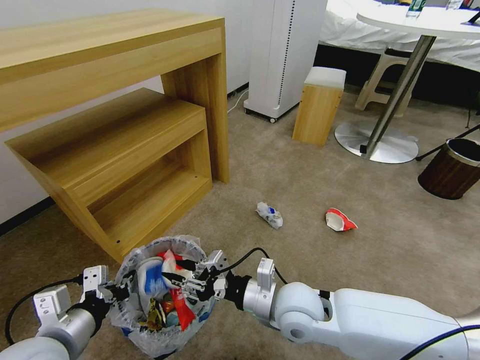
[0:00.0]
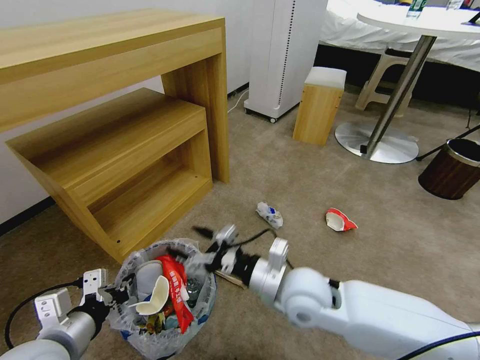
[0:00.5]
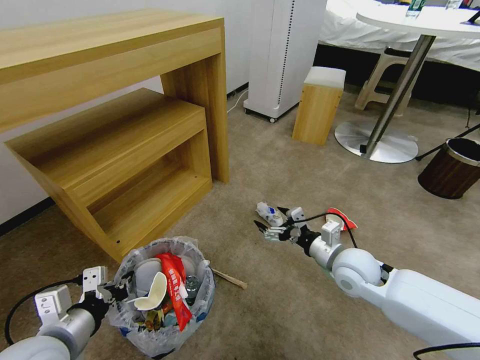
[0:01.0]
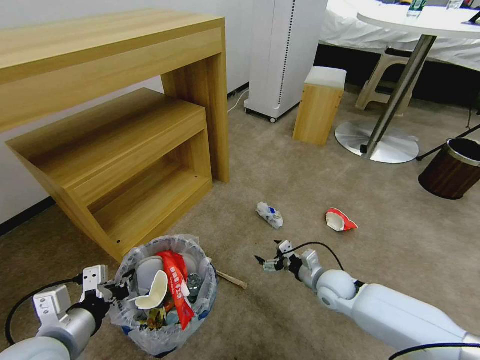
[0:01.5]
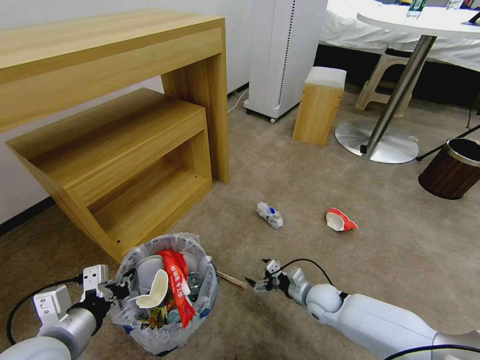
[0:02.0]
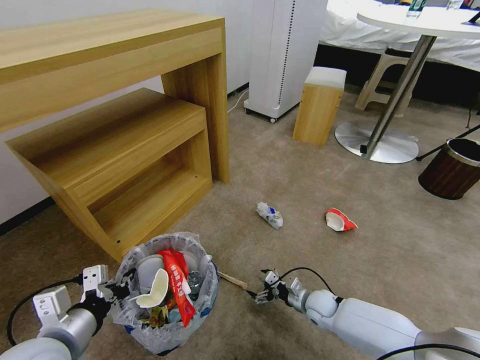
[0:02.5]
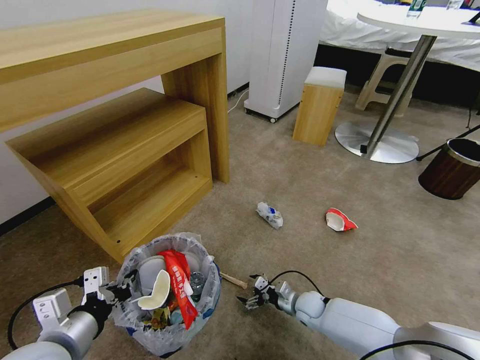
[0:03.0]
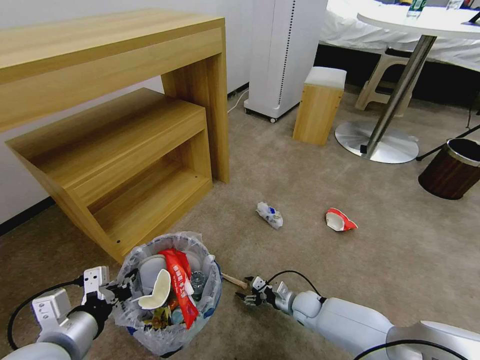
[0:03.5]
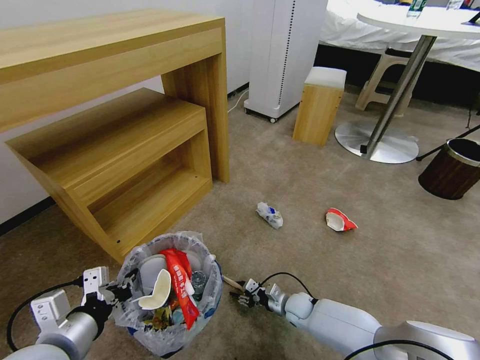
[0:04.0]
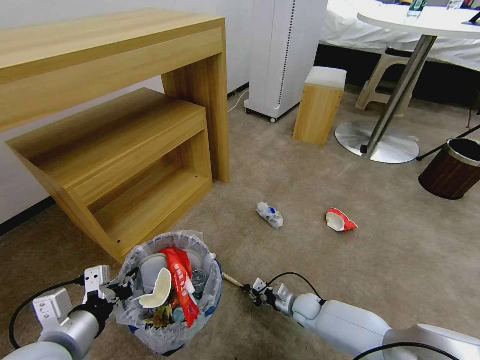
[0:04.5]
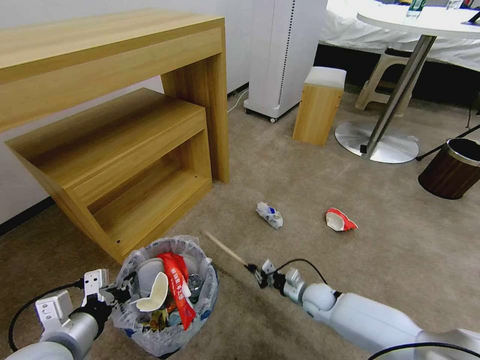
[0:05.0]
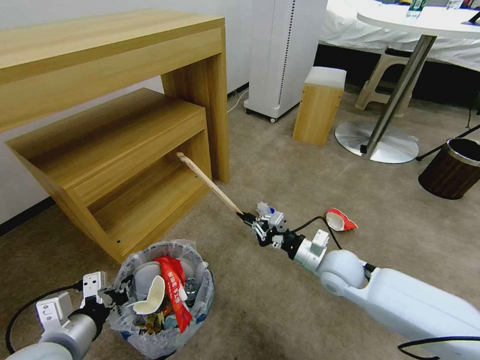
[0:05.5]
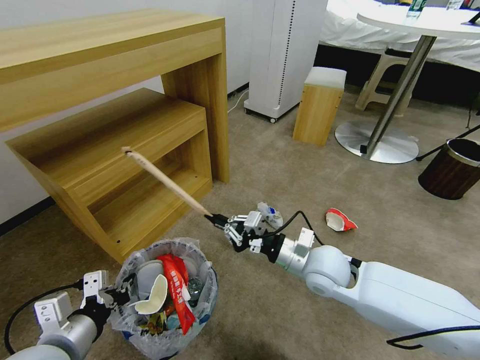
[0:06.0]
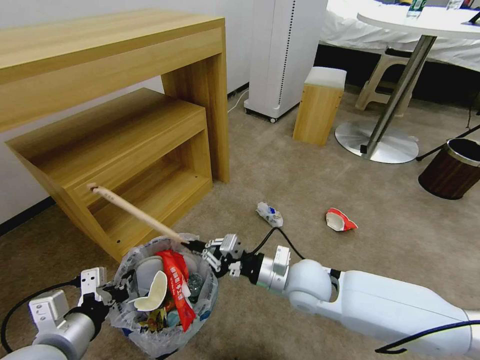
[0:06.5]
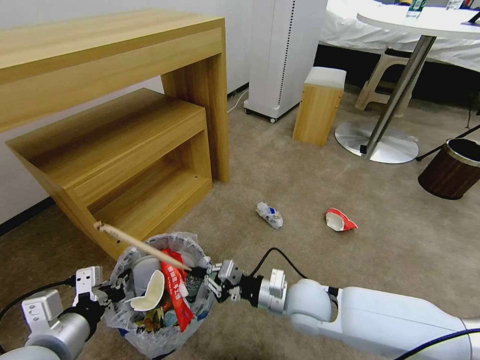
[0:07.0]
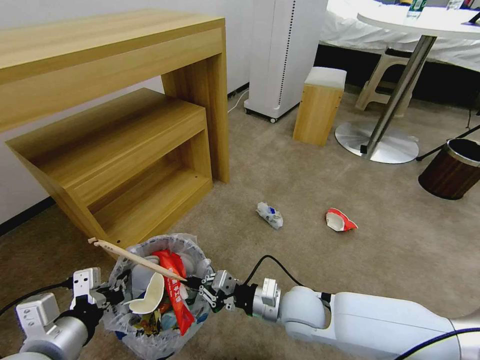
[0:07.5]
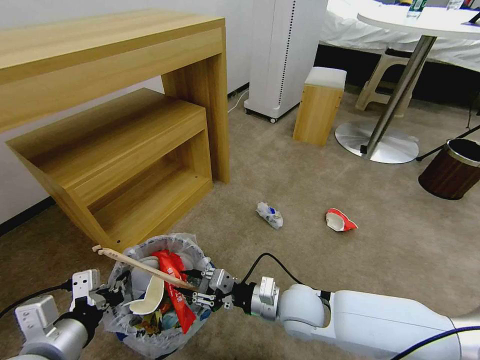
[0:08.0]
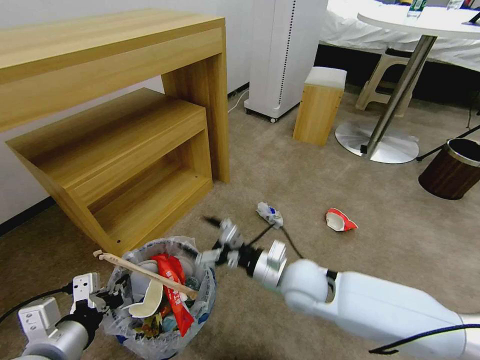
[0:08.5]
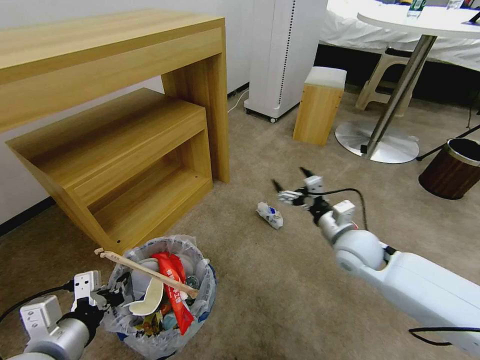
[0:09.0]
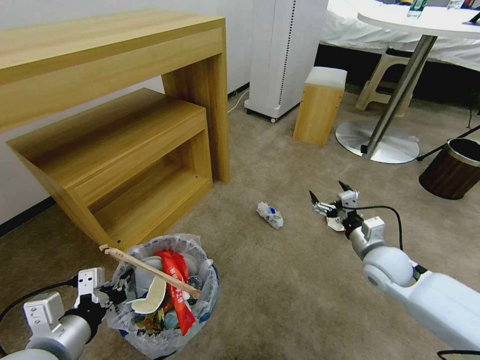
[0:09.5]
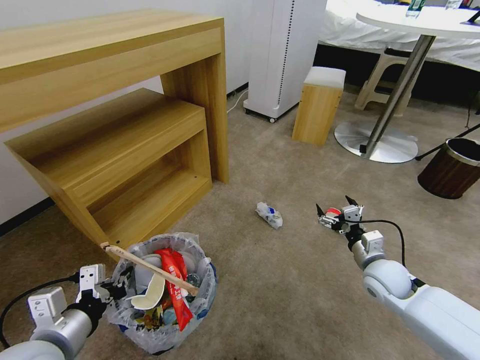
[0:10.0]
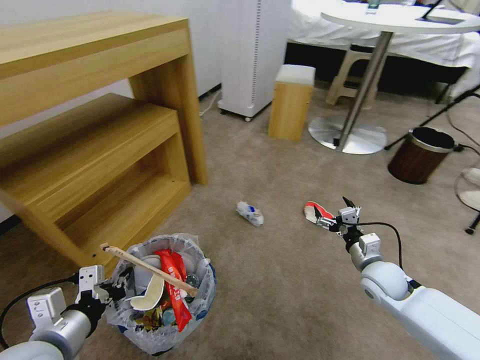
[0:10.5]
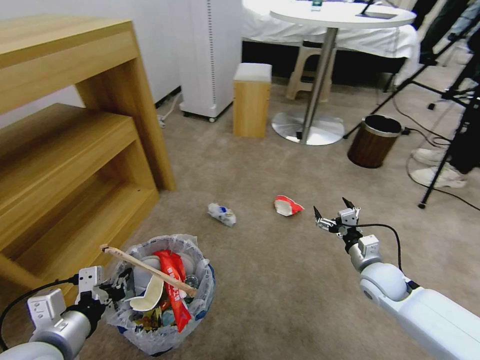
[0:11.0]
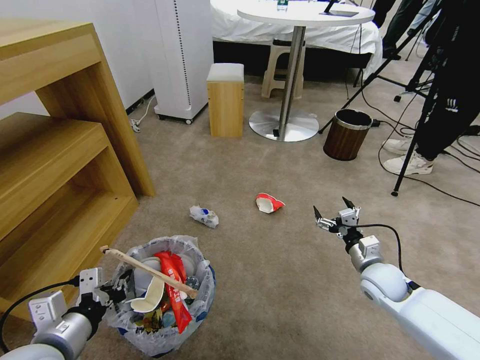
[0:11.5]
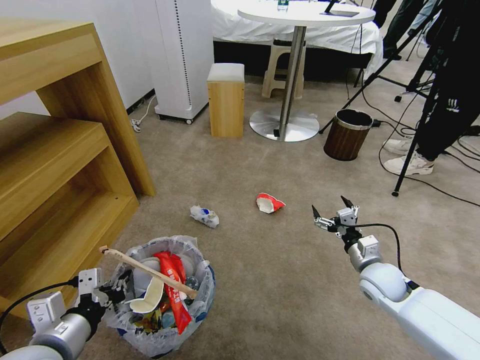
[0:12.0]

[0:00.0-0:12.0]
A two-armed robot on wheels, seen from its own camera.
Task of the whole recording: Pick up the trash bin and place the garbage on the floor into it.
0:00.0 to 0:02.0: The right gripper moves downward, to the right and forward, approximately 25 cm, and opens up.
0:02.0 to 0:04.0: The right gripper is displaced downward by roughly 10 cm, and closes its fingers.
0:04.0 to 0:06.0: The right gripper is displaced upward by about 30 cm, and closes.
0:06.0 to 0:08.0: The right gripper travels downward, backward and to the left by some 10 cm, and opens up.
0:08.0 to 0:10.0: The right gripper is displaced to the right by approximately 20 cm, and opens up.

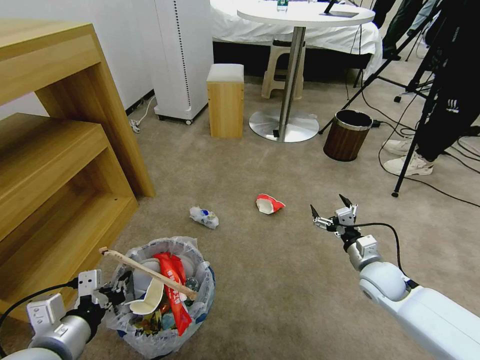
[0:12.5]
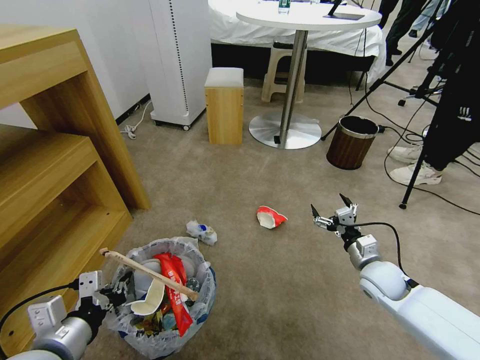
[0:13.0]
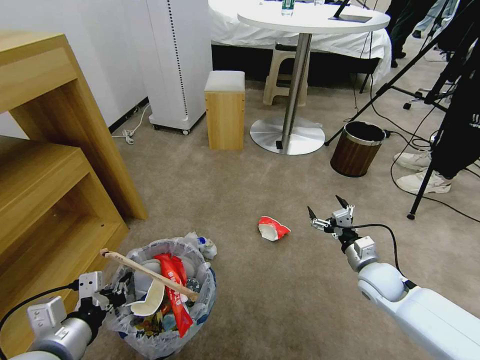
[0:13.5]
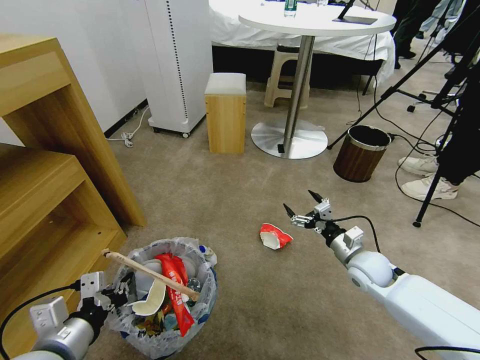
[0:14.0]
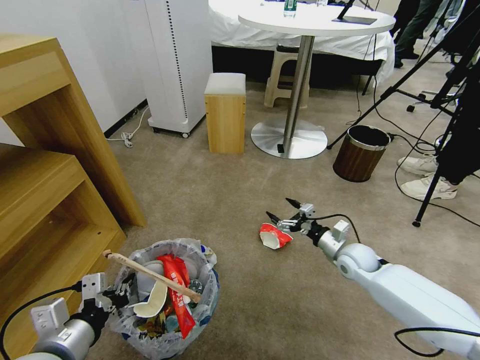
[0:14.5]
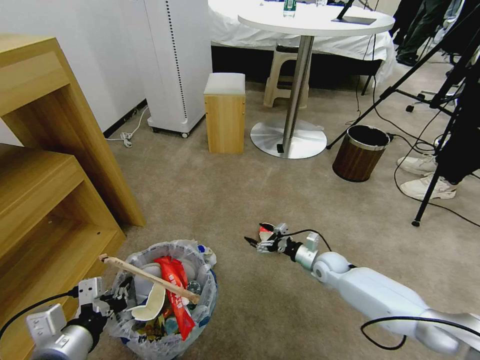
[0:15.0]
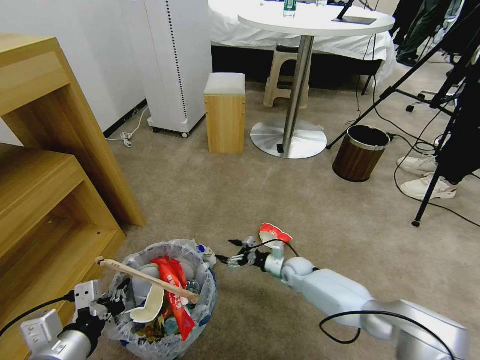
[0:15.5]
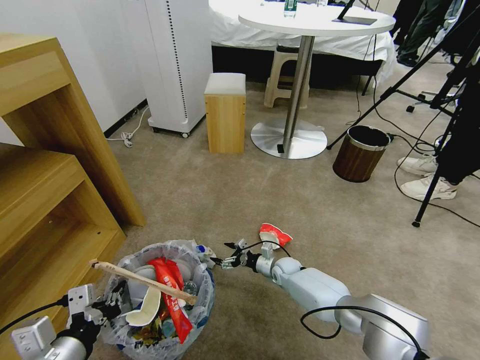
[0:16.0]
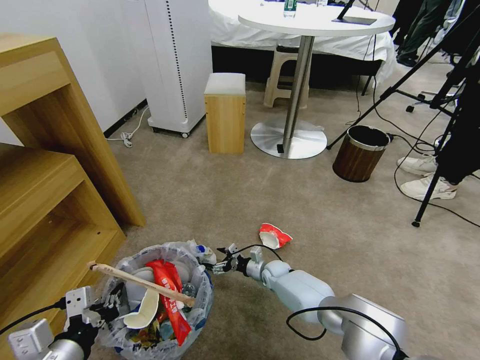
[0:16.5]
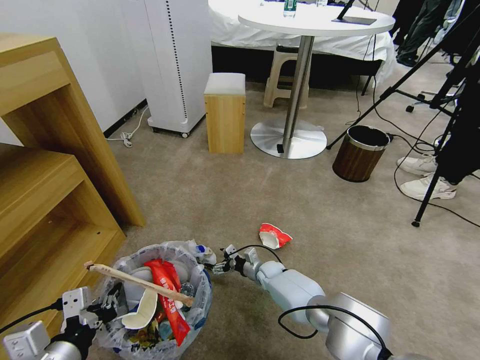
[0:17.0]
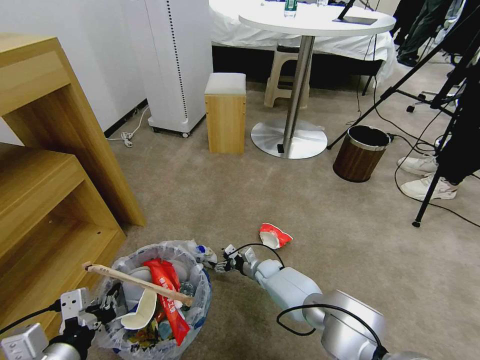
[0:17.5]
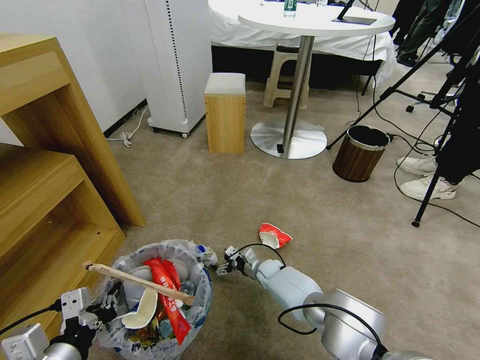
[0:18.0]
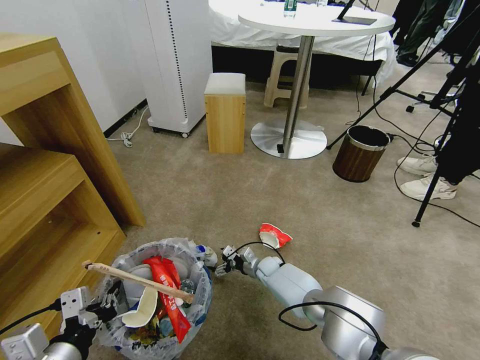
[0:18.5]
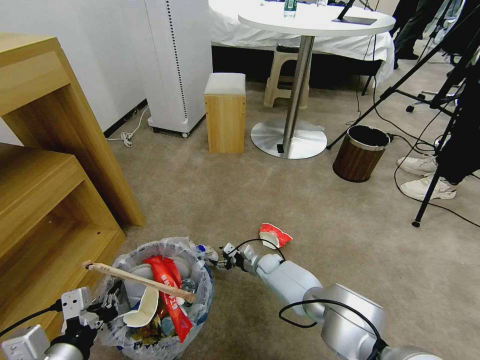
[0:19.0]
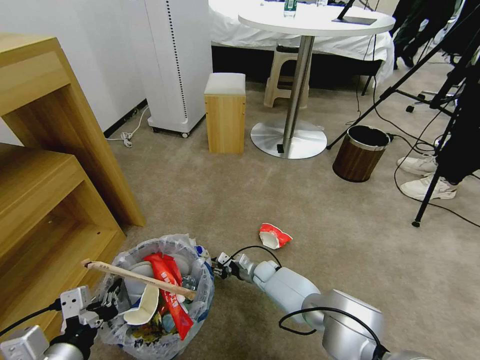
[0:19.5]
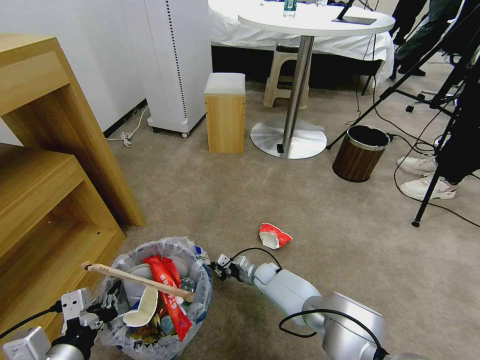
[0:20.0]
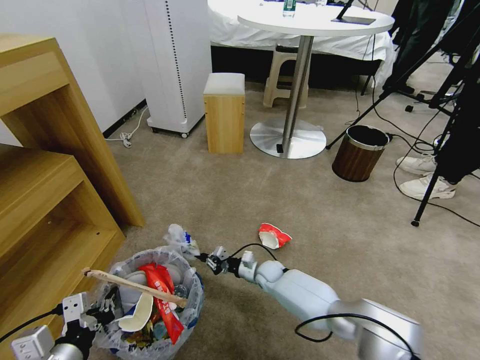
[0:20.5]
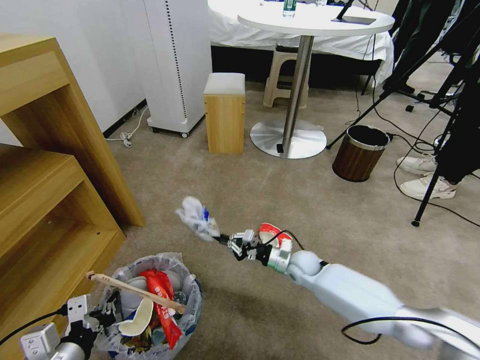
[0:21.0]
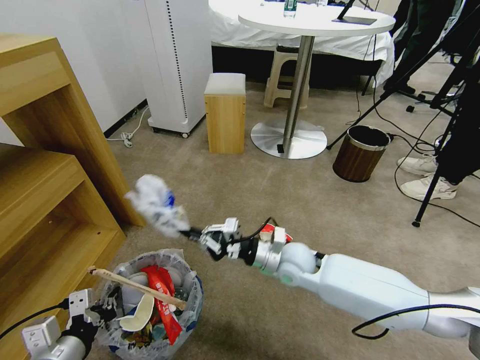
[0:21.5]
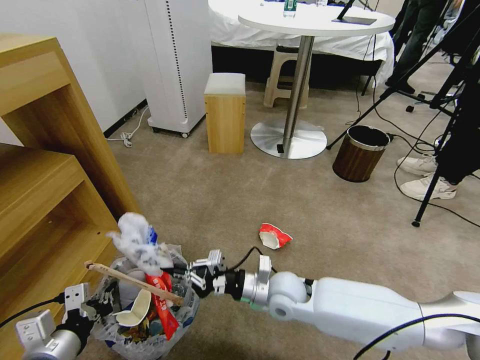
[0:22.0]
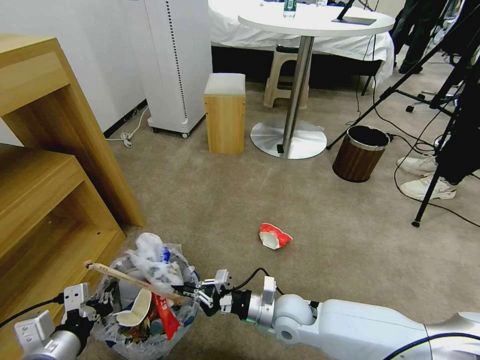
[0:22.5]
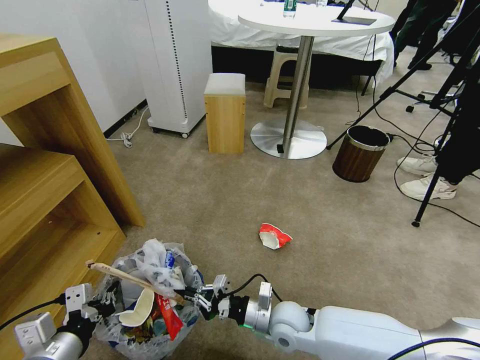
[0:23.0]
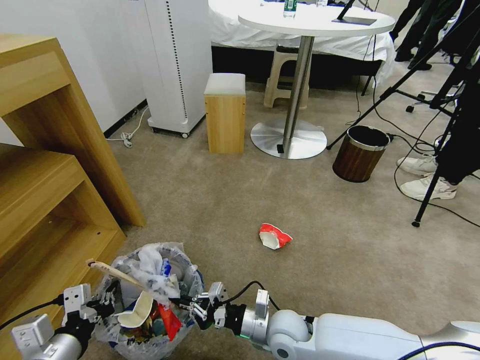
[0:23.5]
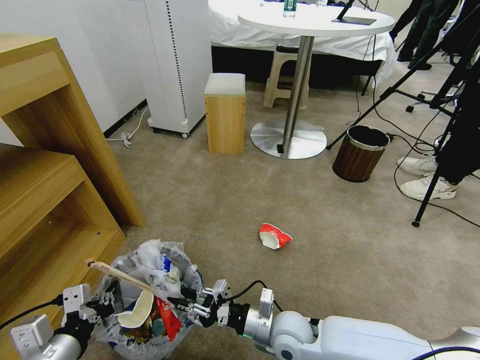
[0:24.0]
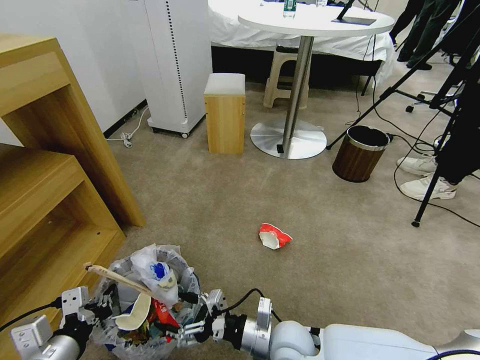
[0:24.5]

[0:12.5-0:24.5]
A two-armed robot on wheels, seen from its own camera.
Task of the whole recording: Pick up the trash bin and place the garbage on the floor into it.
0:12.5 to 0:14.5: The right gripper moves forward, about 5 cm.
0:14.5 to 0:16.5: The right gripper heads to the left and downward, covering some 25 cm.
0:16.5 to 0:18.5: The grippers stay close to where they were, moving slightly.
0:18.5 to 0:20.5: The right gripper closes.
0:20.5 to 0:22.5: The right gripper heads backward and upward, covering roughly 20 cm.
0:22.5 to 0:24.5: The right gripper heads backward, covering roughly 5 cm, and opens its fingers.

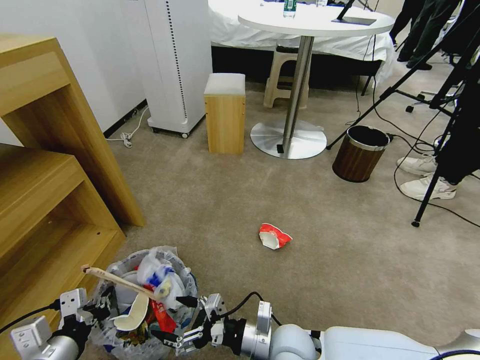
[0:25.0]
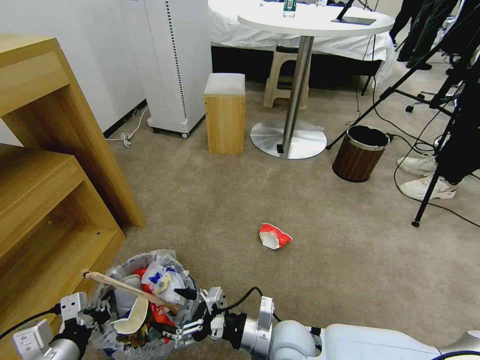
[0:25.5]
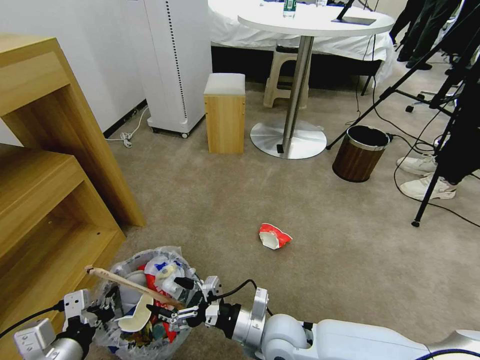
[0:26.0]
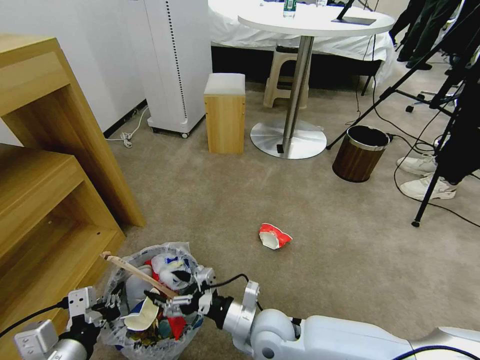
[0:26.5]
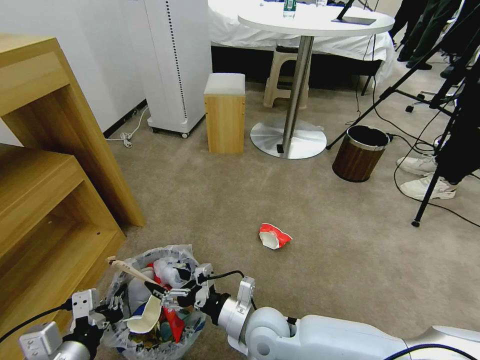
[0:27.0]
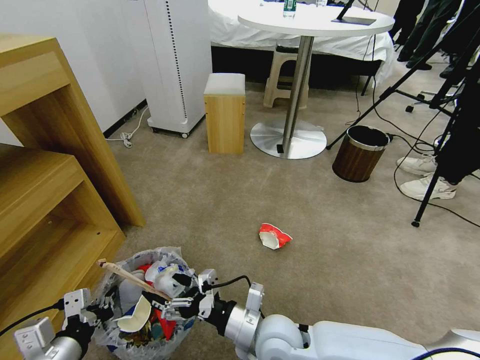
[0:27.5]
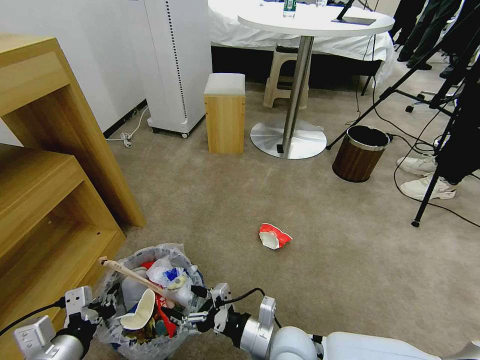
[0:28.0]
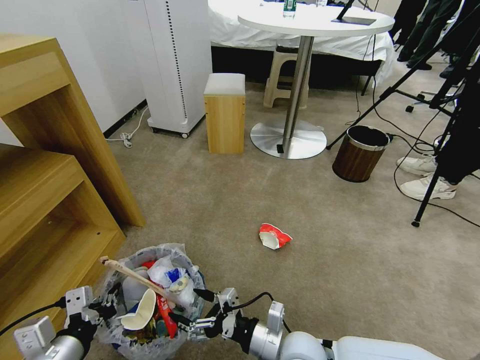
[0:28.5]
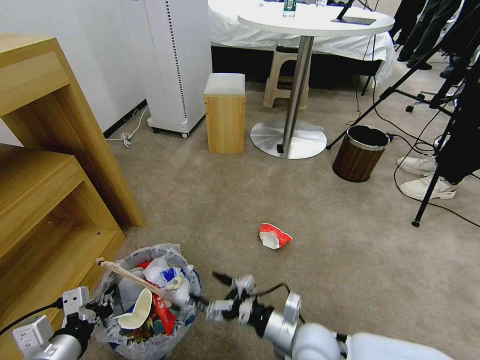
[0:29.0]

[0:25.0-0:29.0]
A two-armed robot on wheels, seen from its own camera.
Task of the whole recording: Pick up the trash bin and place the garbage on the floor into it.
0:25.0 to 0:27.0: The right gripper heads to the left, covering some 5 cm.
0:27.0 to 0:29.0: The right gripper moves to the right, roughly 10 cm.
